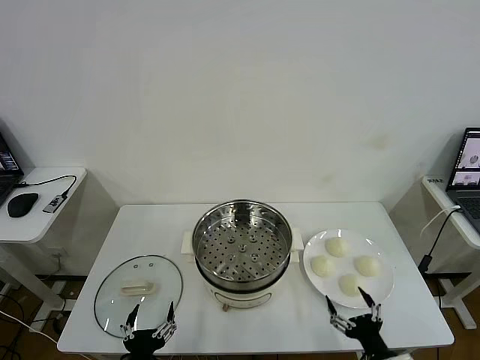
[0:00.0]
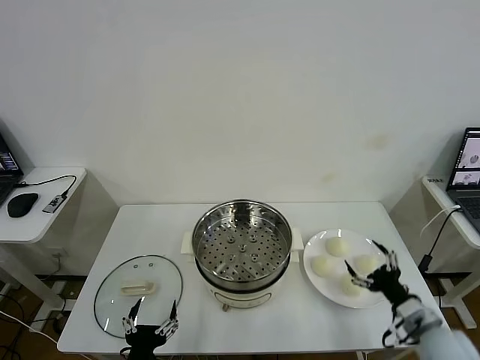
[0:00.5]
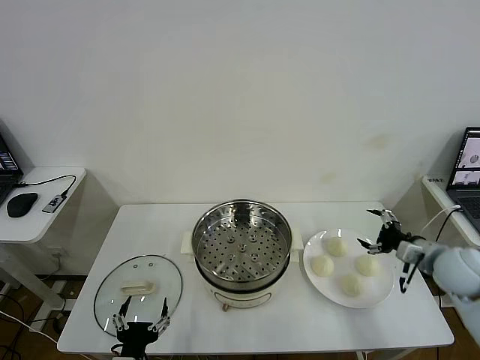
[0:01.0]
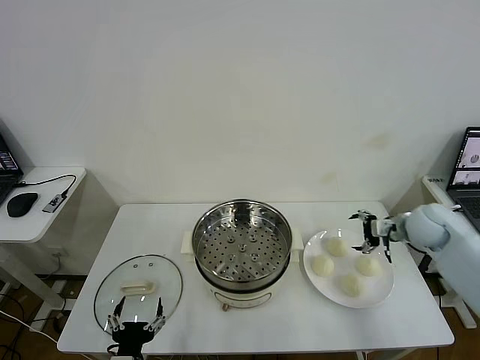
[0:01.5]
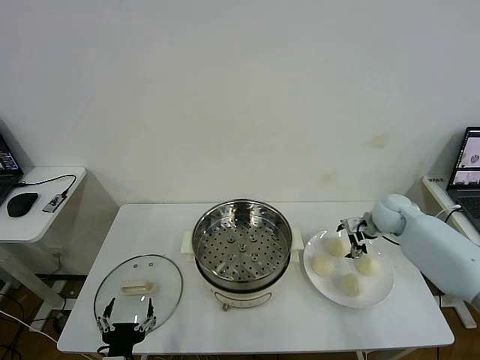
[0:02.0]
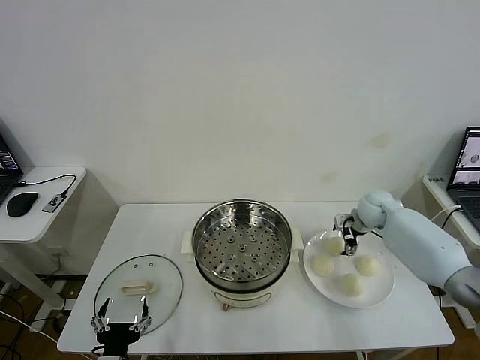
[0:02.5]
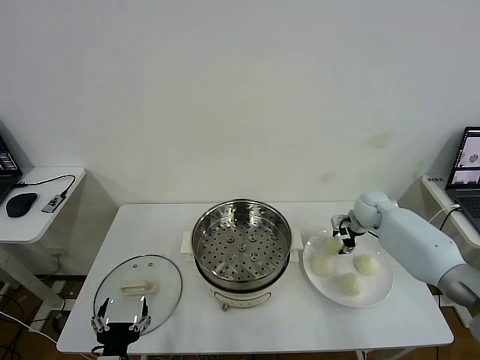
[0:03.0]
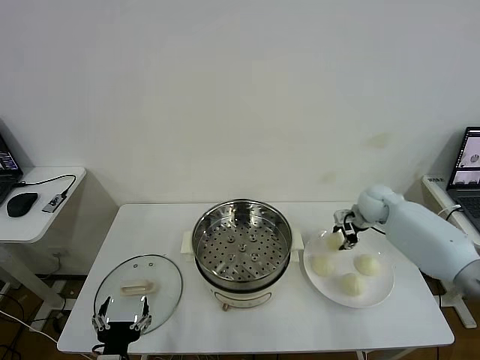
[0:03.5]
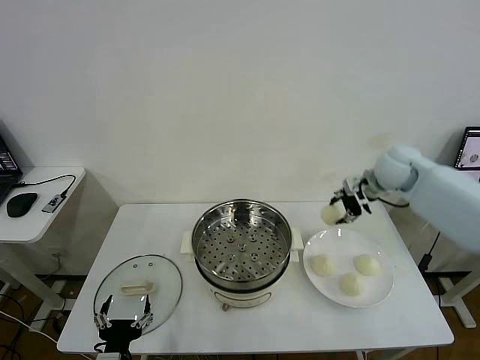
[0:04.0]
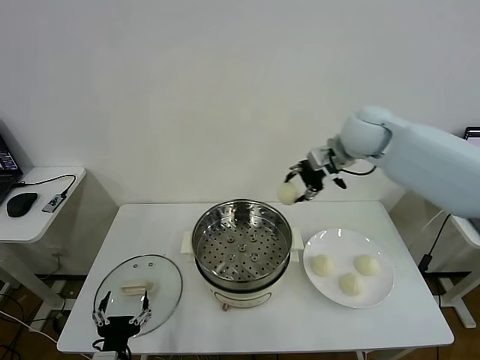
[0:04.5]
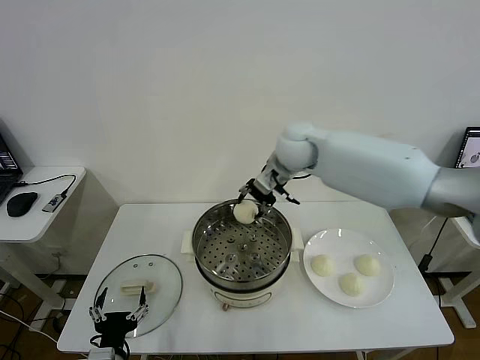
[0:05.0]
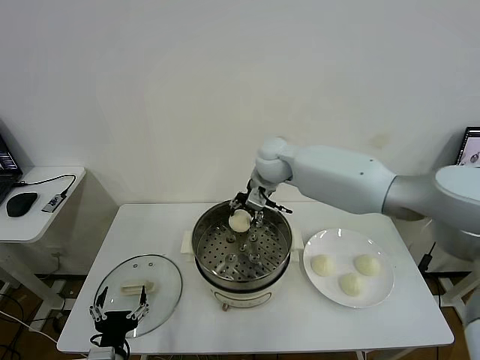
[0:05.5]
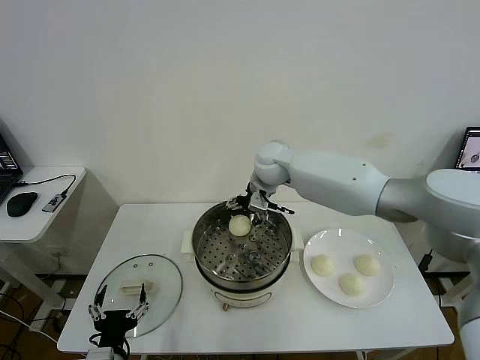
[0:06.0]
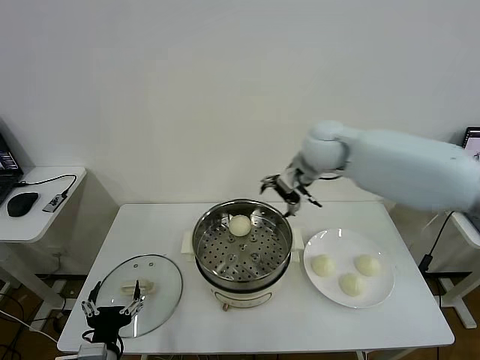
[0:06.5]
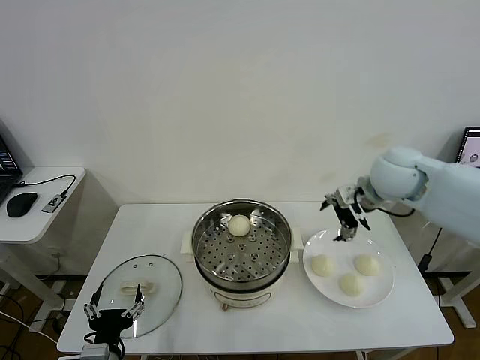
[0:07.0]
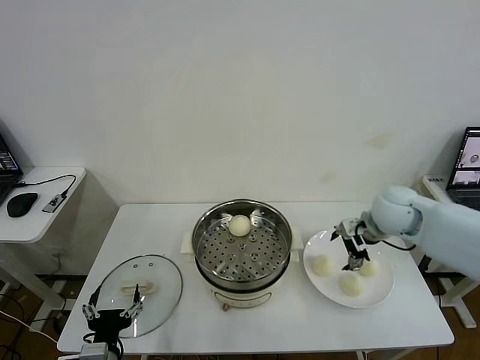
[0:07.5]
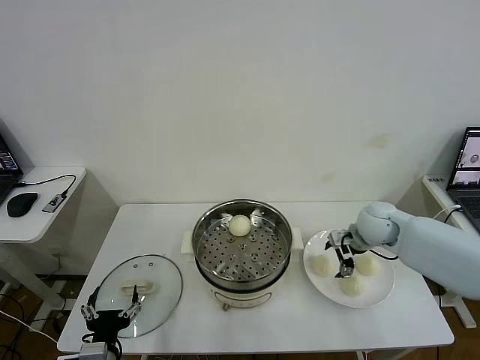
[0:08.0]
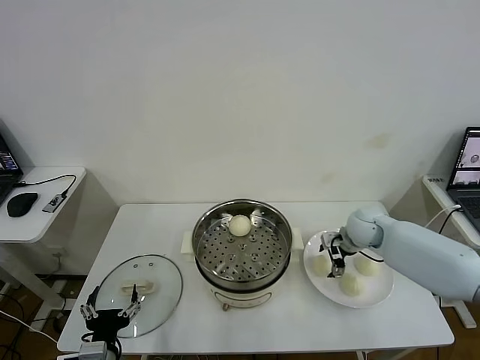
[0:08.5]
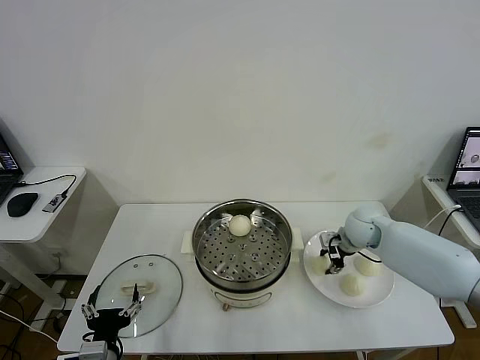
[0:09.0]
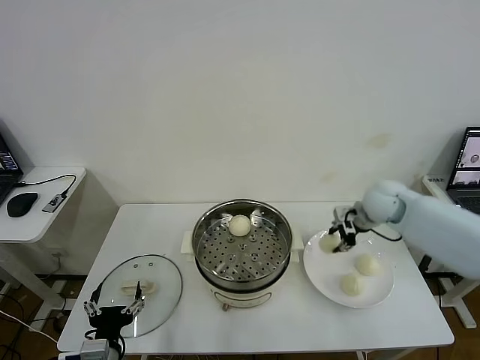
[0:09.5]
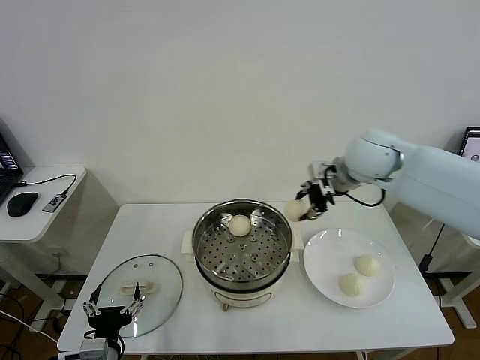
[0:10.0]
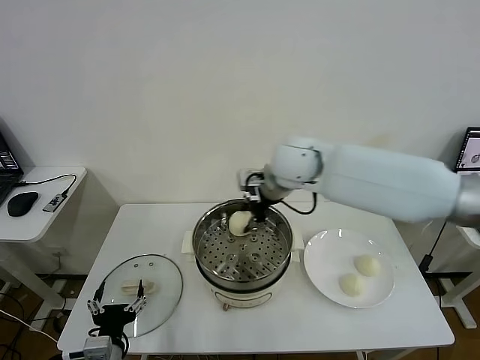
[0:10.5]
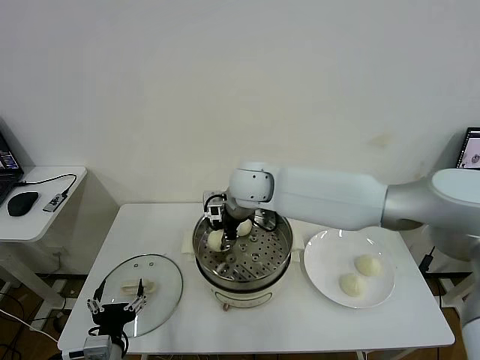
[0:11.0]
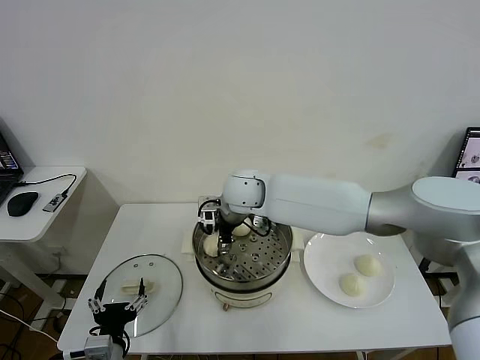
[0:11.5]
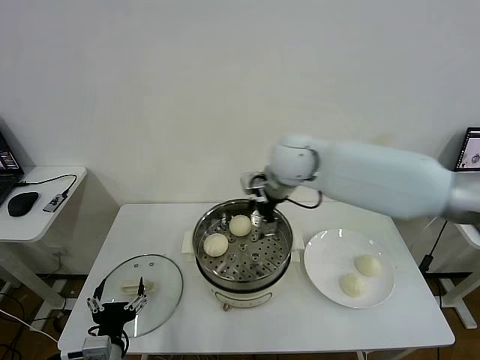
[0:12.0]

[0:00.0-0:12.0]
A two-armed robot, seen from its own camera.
Task of the whole recording: take steamed baozi put them in steamer then cover it.
Step, 0:00.0 to 0:03.0: Grasp the baozi in the plate with right gripper.
Step, 0:03.5 to 0:06.0: Place the baozi on the steamer with right gripper.
Step, 0:06.5 to 0:09.0: Grasp the baozi in the plate with right gripper.
Step, 0:09.5 to 0:11.5: Place the baozi on the steamer with right gripper.
0:02.0 to 0:04.0: The right gripper shifts approximately 20 cm upward, and closes.
0:04.0 to 0:06.0: The right gripper shifts roughly 25 cm to the left, and opens its fingers.
0:06.0 to 0:08.0: The right gripper shifts approximately 25 cm to the right and downward.
0:08.0 to 0:10.0: The right gripper shifts roughly 20 cm upward and to the left, and closes its fingers.
0:10.0 to 0:12.0: The right gripper heads to the left, covering roughly 10 cm, and opens up.

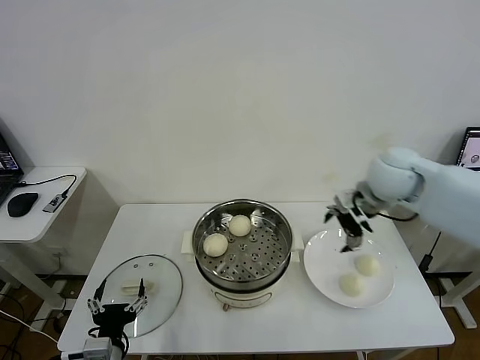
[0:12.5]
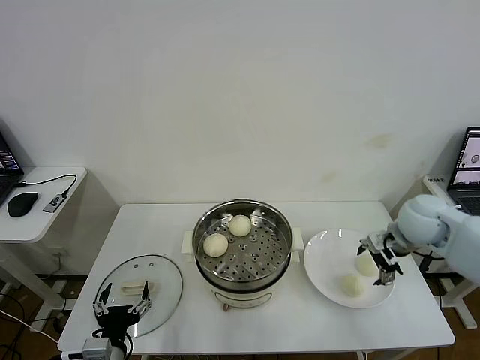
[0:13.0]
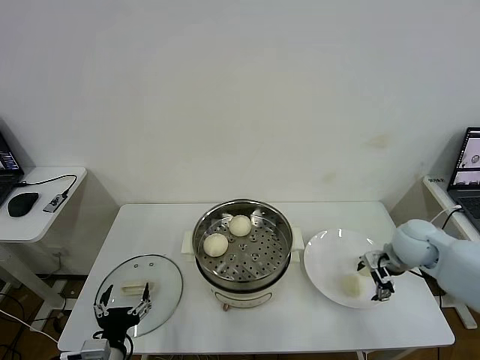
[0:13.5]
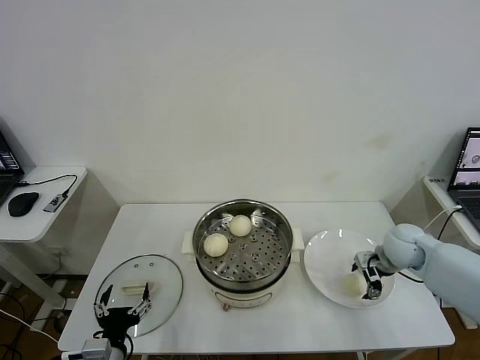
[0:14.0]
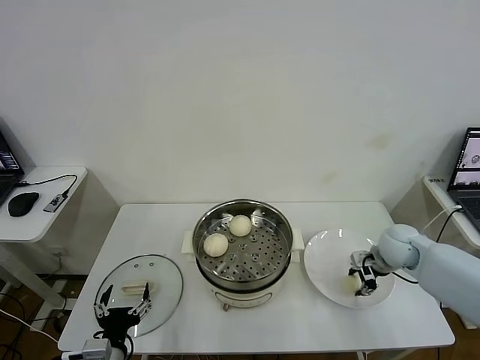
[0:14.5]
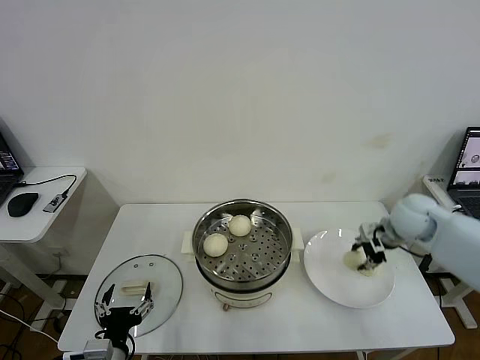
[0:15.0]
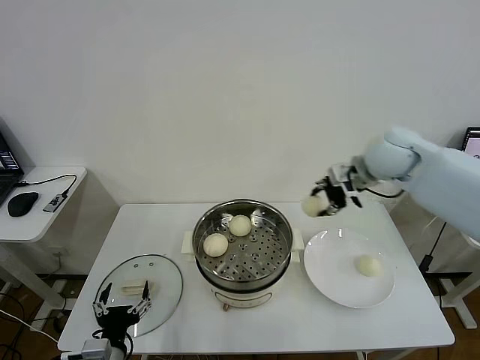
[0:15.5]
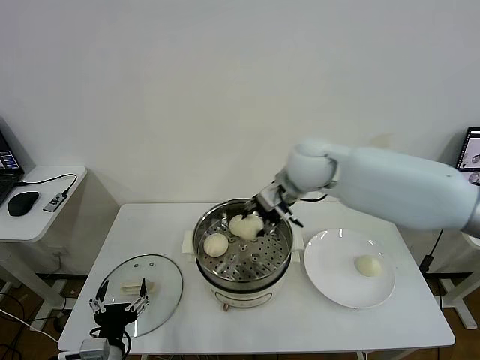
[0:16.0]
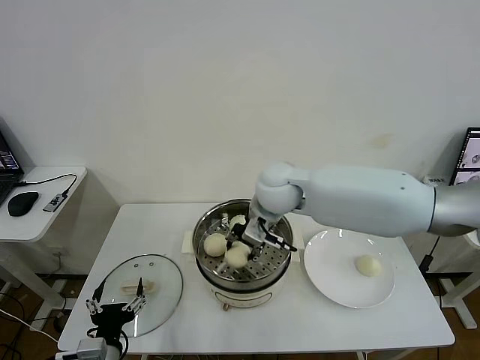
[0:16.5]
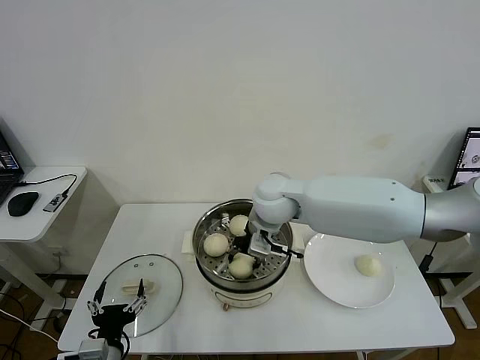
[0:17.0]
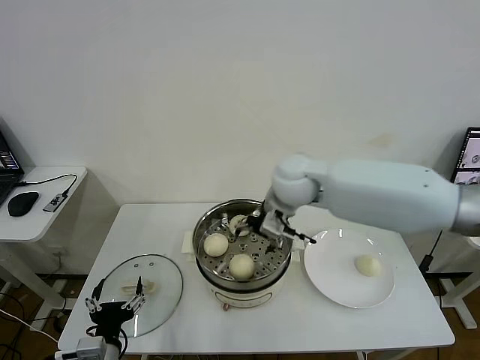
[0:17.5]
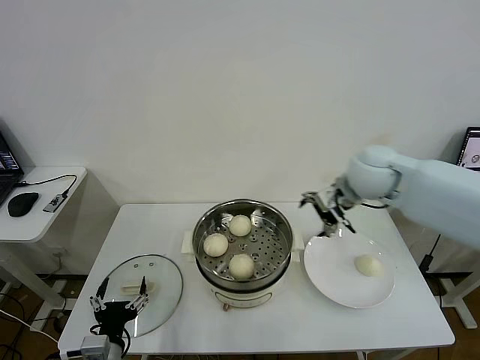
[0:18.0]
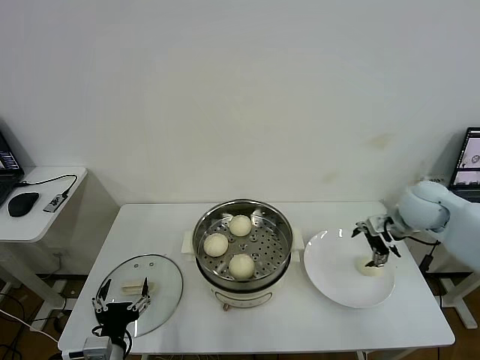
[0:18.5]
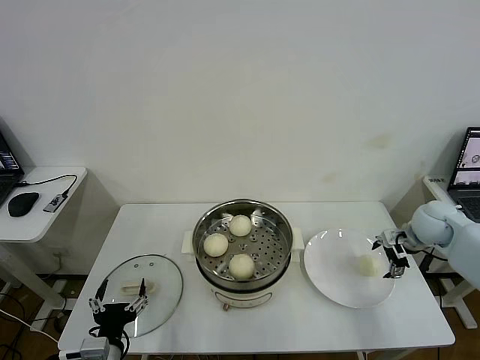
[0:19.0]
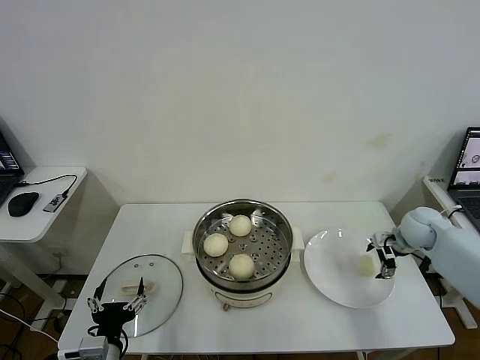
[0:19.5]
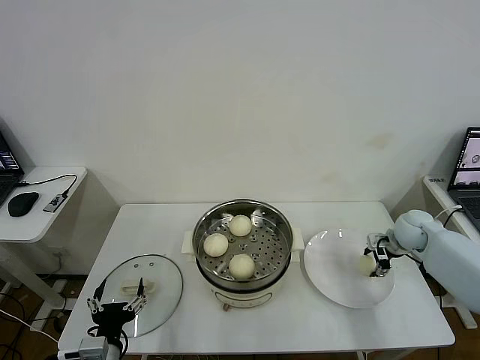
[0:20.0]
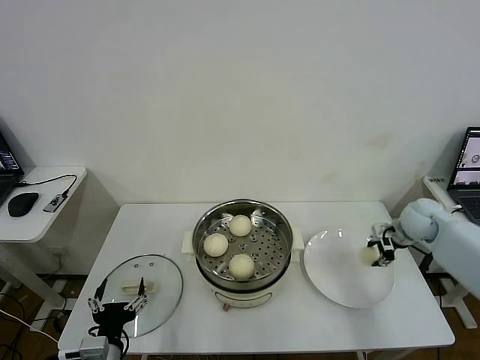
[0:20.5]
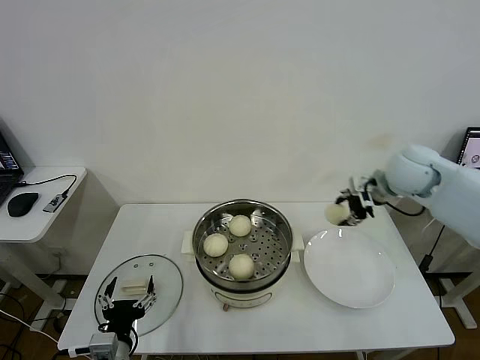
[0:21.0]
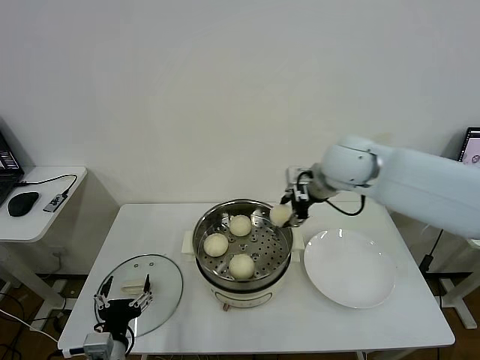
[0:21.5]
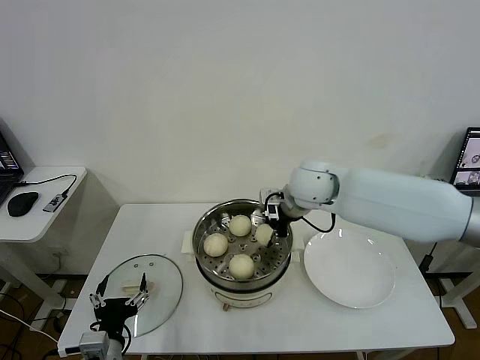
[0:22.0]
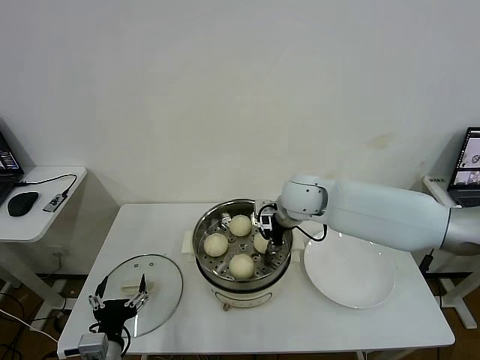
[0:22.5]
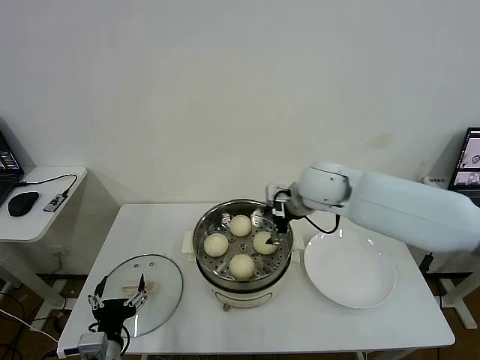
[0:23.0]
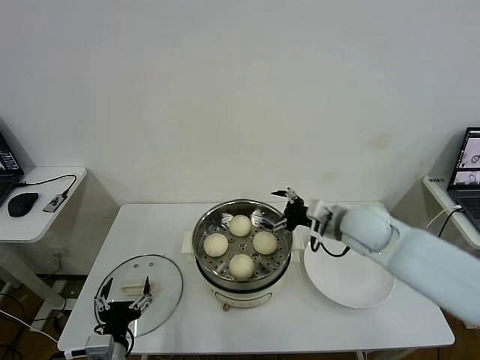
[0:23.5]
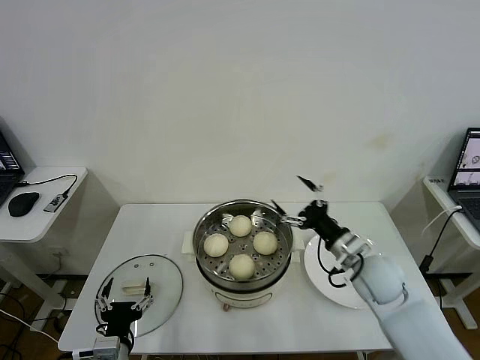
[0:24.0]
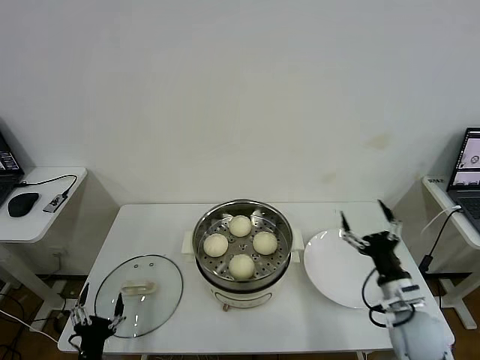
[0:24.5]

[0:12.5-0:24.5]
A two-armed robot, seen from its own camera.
Task of the whole recording: take steamed baozi put them in steamer then cover it.
Step, 0:12.5 to 0:14.5: Grasp the baozi in the plate with right gripper.
Step, 0:15.0 to 0:17.0: Place the baozi on the steamer with right gripper.
Step, 0:18.0 to 0:20.0: Grasp the baozi in the plate with right gripper.
Step, 0:20.5 to 0:22.5: Place the baozi on the steamer with right gripper.
0:12.5 to 0:14.5: The right gripper moves downward, roughly 20 cm, and closes up.
0:14.5 to 0:16.5: The right gripper goes roughly 35 cm to the left and upward.
0:16.5 to 0:18.5: The right gripper travels to the right by roughly 30 cm, and opens.
0:18.5 to 0:20.5: The right gripper goes some 5 cm downward, and closes up.
0:20.5 to 0:22.5: The right gripper shifts roughly 30 cm to the left.
0:22.5 to 0:24.5: The right gripper heads backward, to the right and downward, covering some 35 cm, and opens. Meanwhile the left gripper goes approximately 10 cm downward.

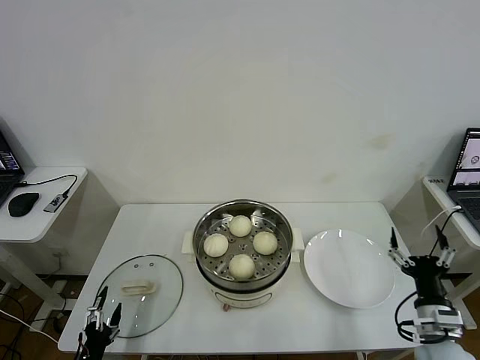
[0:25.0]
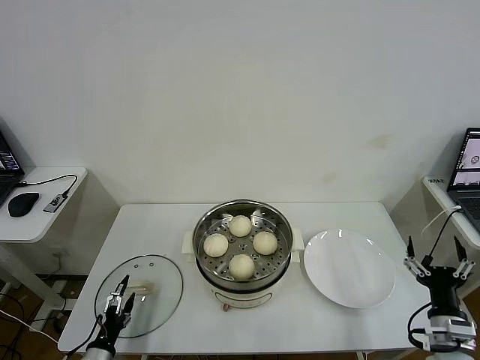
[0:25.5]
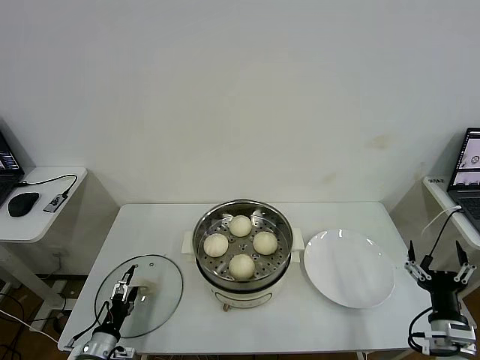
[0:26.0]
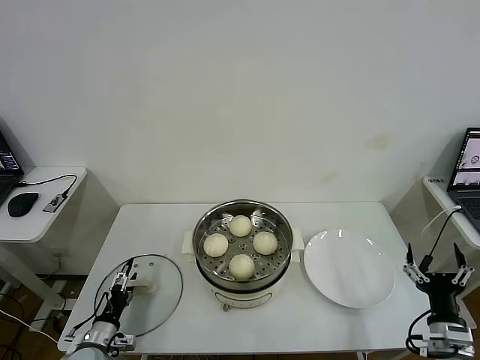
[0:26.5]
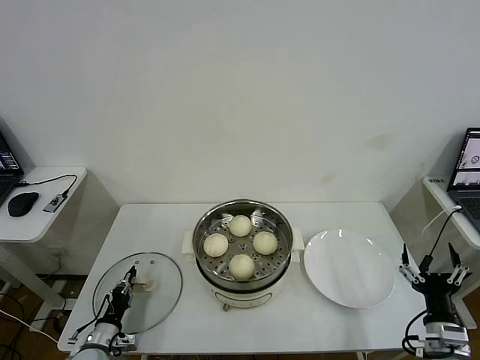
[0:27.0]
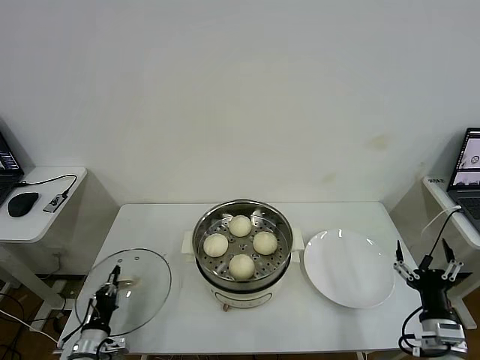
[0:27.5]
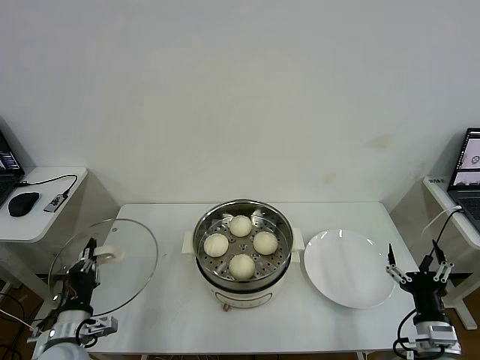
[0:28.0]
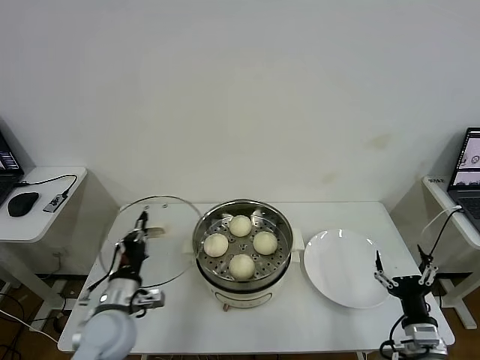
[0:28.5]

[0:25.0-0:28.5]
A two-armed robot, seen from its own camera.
Task of the whole recording: take steamed baozi put them in steamer then cover it.
Step, 0:25.0 to 0:27.0: Grasp the pot lid with left gripper.
0:25.0 to 0:27.0: The left gripper shifts some 10 cm forward, and closes its fingers.
0:27.0 to 0:28.5: The left gripper moves upward and to the right, about 20 cm.
